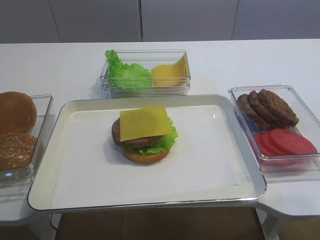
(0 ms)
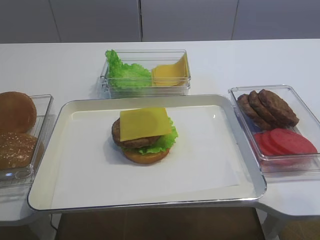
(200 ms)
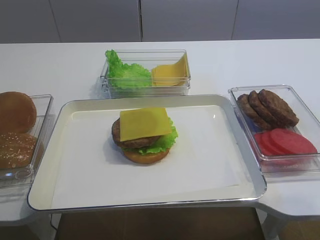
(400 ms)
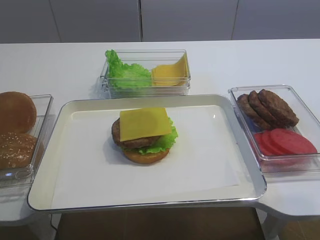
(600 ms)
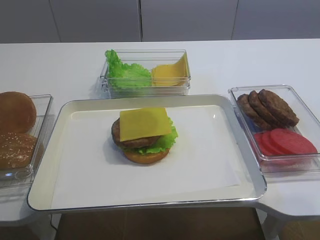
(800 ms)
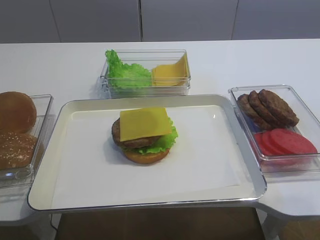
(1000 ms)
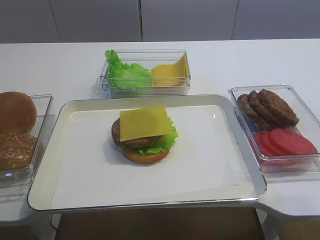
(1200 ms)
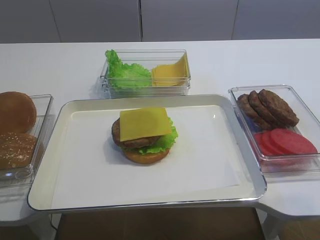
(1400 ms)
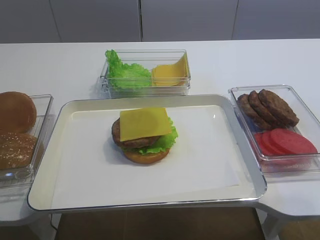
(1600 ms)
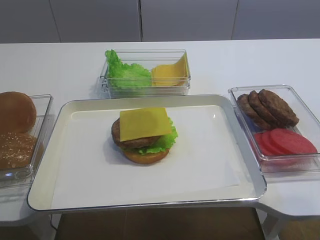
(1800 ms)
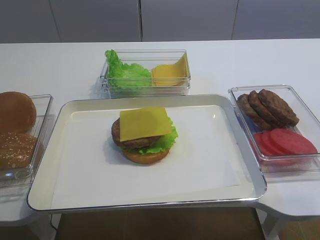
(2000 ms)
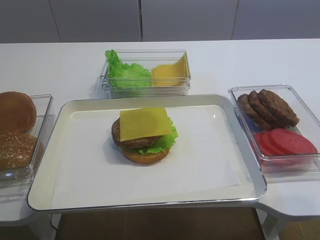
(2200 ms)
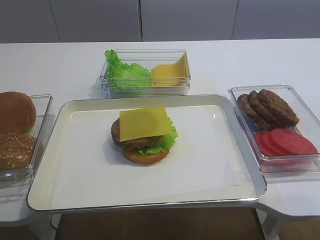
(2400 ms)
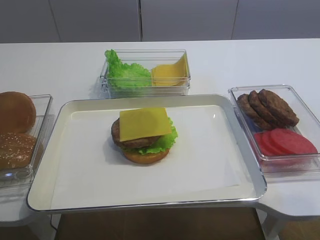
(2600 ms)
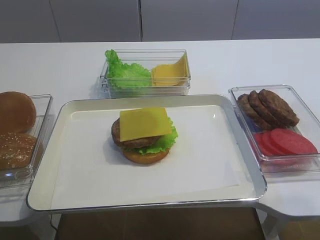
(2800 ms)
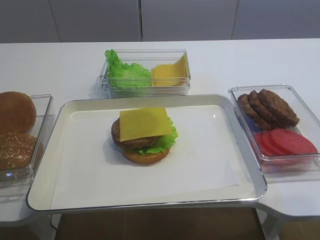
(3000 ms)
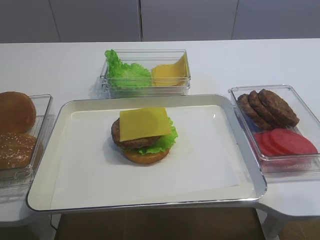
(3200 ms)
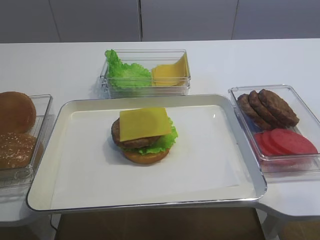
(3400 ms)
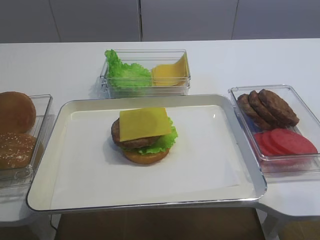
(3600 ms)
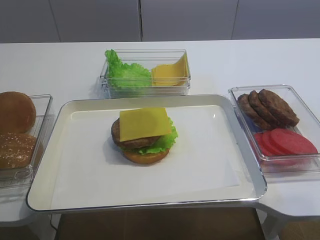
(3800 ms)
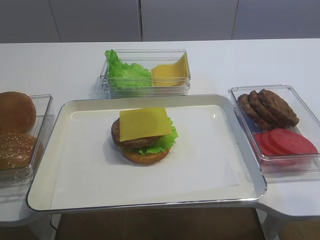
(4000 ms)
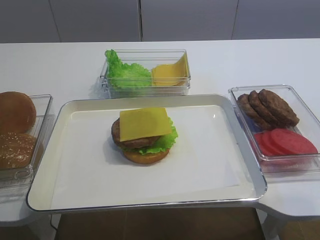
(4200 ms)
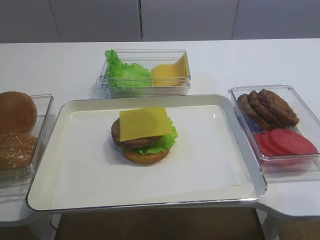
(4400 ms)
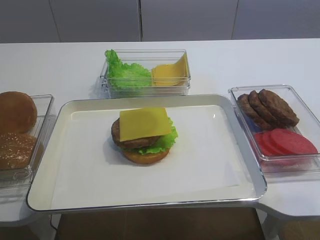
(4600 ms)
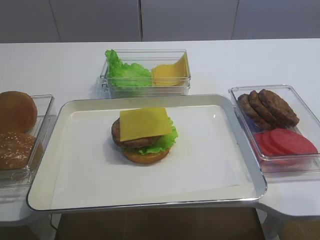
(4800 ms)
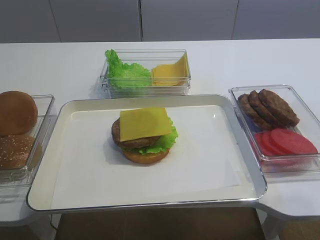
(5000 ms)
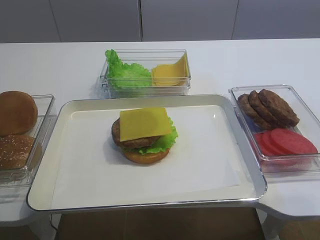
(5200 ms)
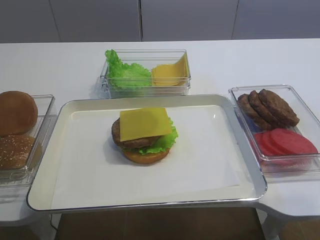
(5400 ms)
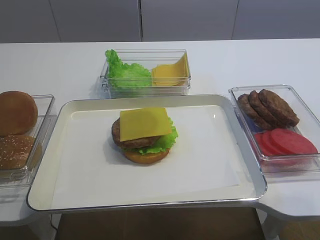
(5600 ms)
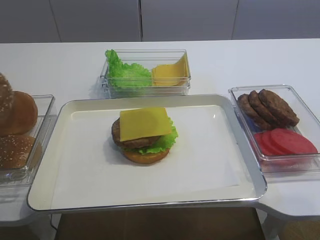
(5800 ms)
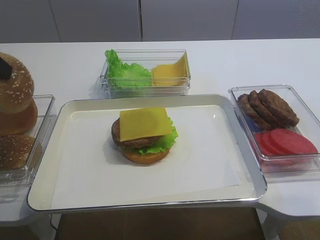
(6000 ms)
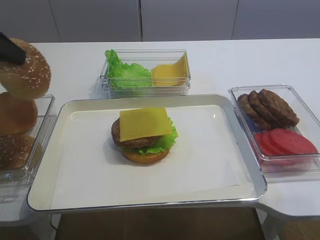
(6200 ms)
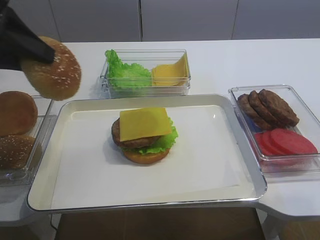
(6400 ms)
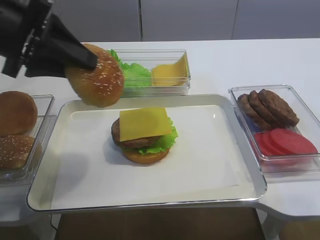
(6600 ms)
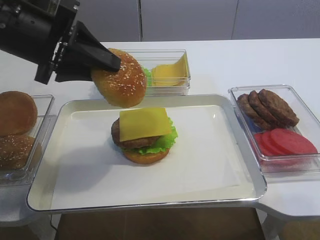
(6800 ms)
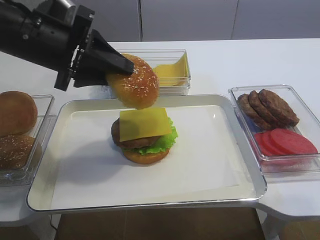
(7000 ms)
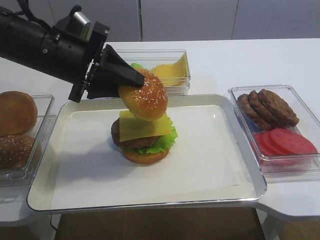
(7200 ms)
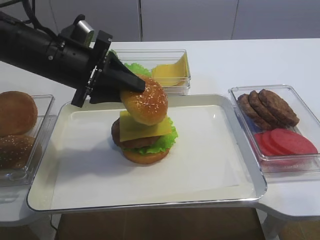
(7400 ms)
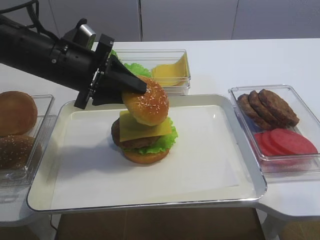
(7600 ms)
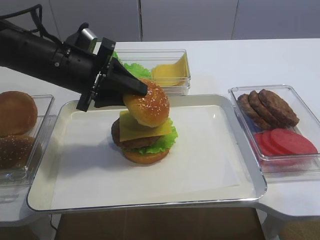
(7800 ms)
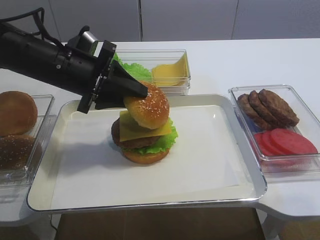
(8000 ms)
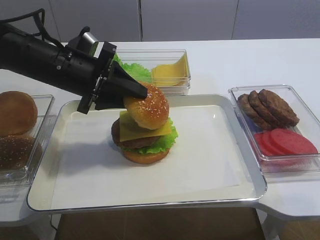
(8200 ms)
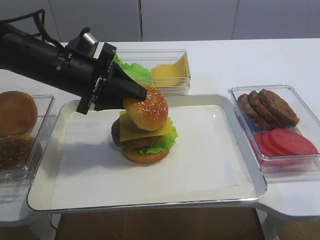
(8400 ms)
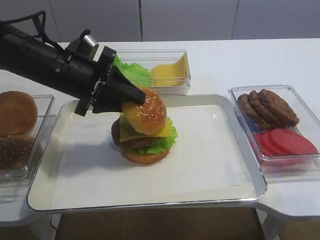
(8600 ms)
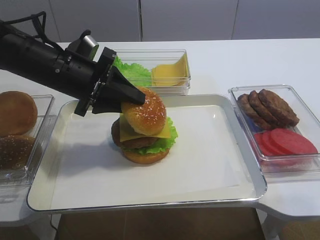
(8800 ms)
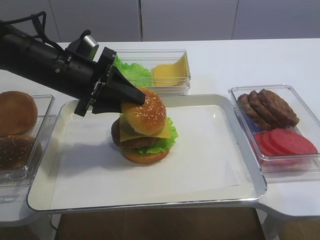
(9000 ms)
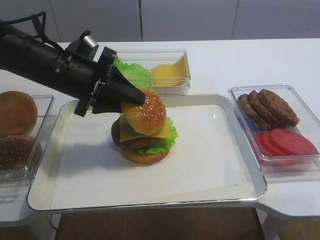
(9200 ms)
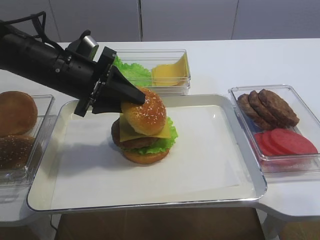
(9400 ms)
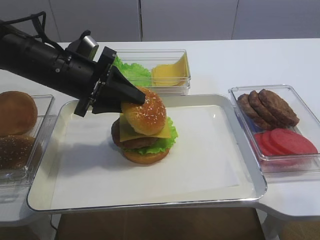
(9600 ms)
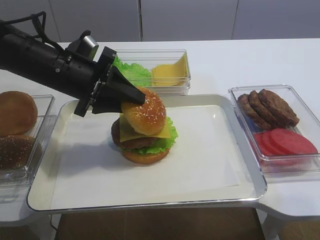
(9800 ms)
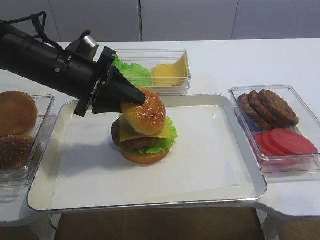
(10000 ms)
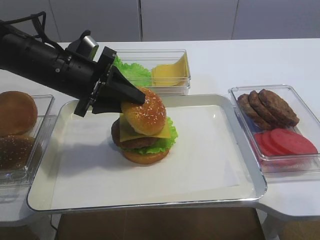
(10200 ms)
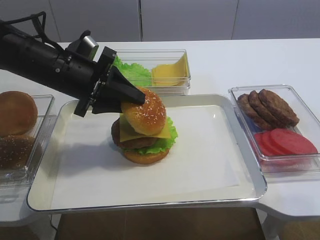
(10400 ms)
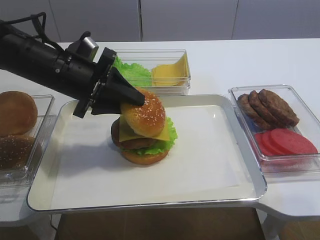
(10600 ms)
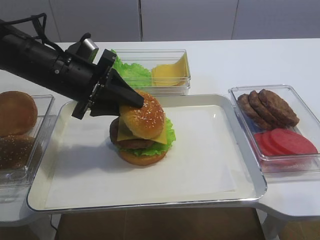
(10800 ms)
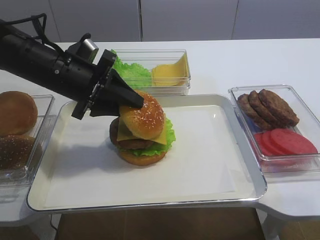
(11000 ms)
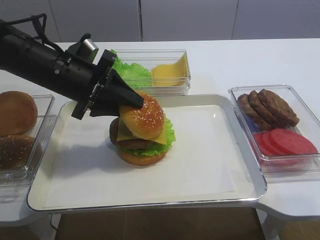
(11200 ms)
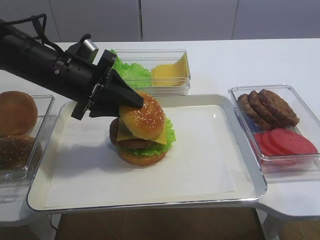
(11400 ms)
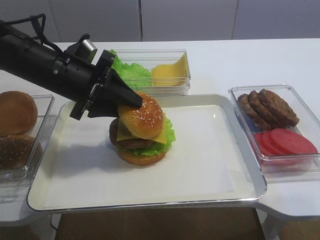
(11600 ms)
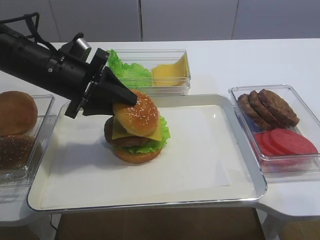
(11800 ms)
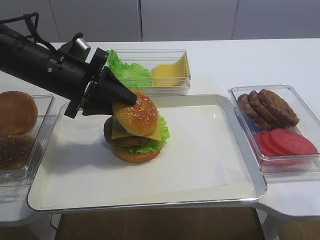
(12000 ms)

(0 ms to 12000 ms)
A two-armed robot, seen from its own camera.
Step, 0 ms - 6000 ms: Pick up the hamburger lid with the left gripper.
4400 ms - 6000 ms: The left gripper travels upward by roughly 10 cm, and closes its fingers.
6000 ms - 7600 ms: The left gripper moves to the right, downward and forward, approximately 20 cm.
7600 ms - 9000 ms: The grippers make only small movements.
9000 ms - 12000 ms: The two grippers keep their place.

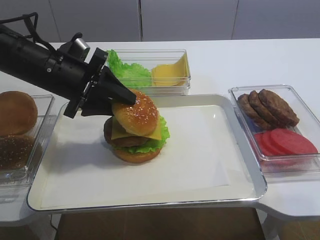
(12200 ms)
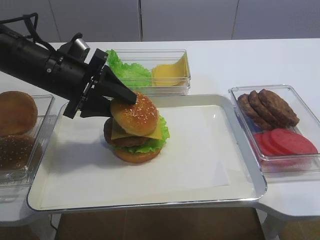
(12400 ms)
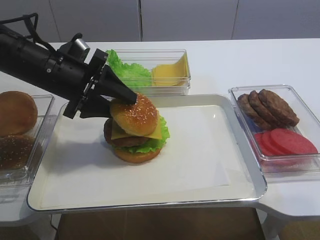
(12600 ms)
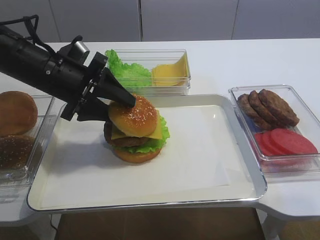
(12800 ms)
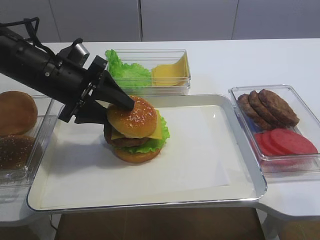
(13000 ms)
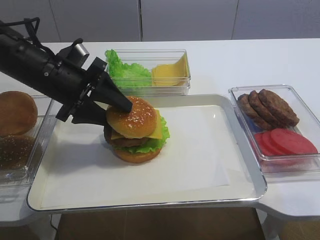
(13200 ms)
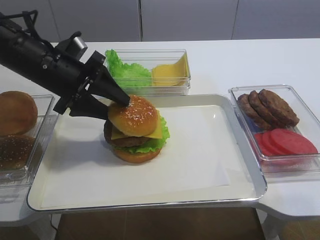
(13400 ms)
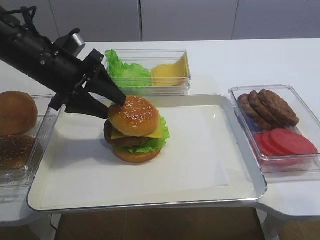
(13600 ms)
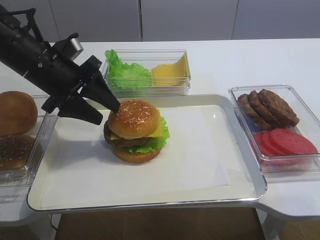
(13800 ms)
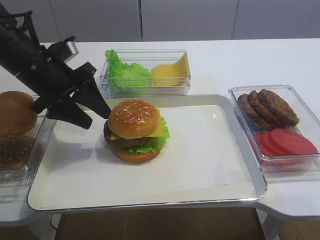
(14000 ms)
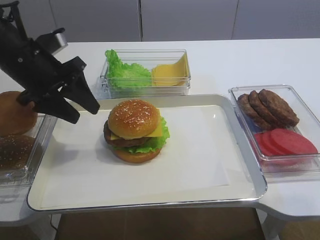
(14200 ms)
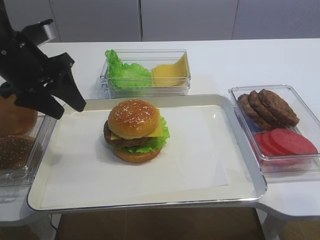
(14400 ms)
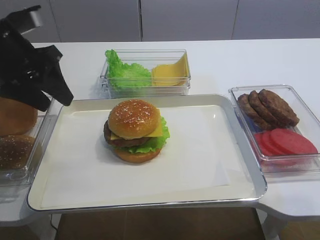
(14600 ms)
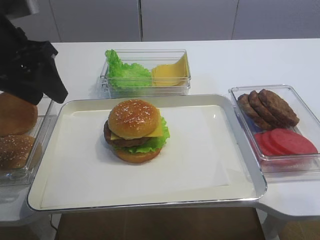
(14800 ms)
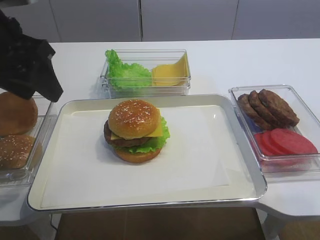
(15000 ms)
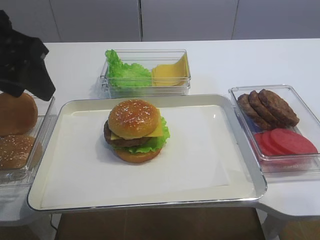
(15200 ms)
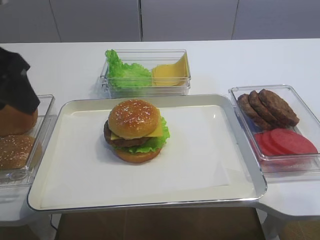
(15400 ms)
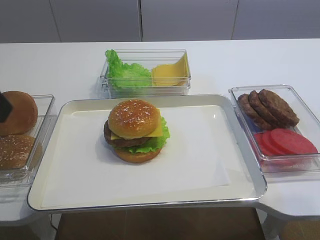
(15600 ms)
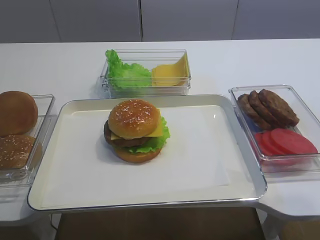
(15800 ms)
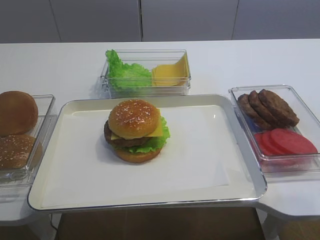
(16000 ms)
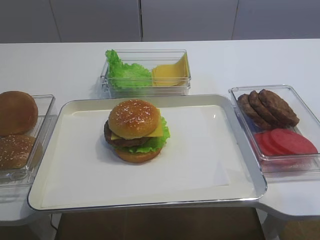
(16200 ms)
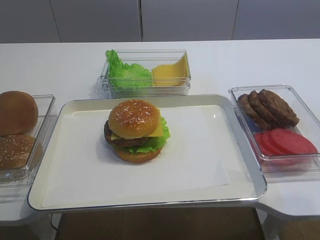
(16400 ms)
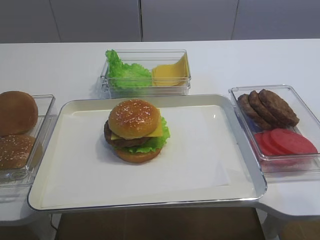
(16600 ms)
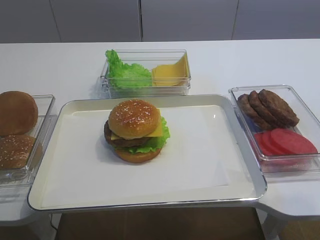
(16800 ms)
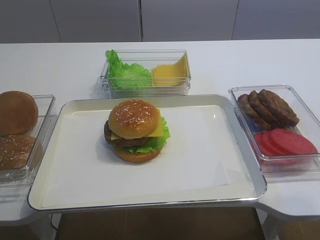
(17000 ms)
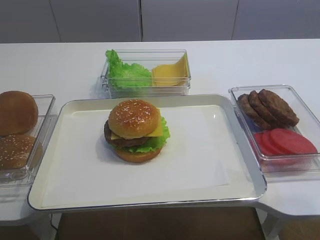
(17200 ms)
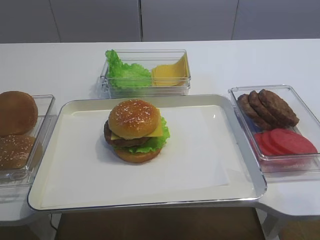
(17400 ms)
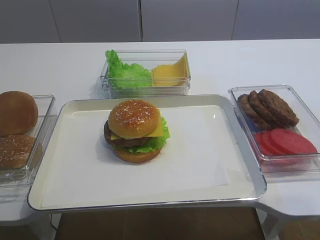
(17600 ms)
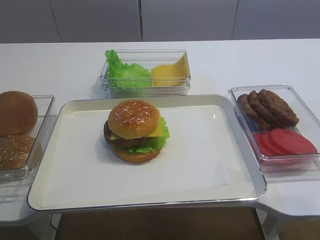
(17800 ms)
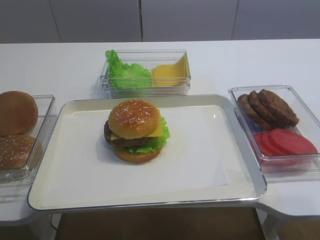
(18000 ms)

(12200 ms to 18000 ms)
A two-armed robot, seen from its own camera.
Step, 12200 ms - 14800 ms: Place the hamburger lid on the cheese slice with the left gripper.
12200 ms - 13600 ms: The left gripper opens up.
13600 ms - 15000 ms: The left gripper moves upward and backward, some 15 cm.
15000 ms - 16600 ms: The left gripper is displaced backward by some 25 cm.

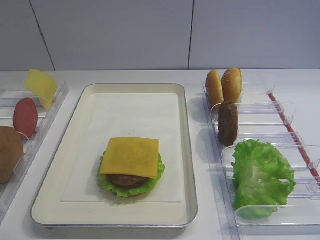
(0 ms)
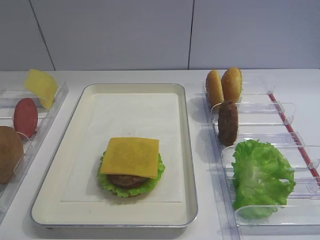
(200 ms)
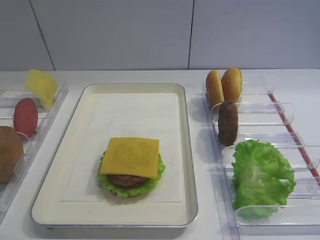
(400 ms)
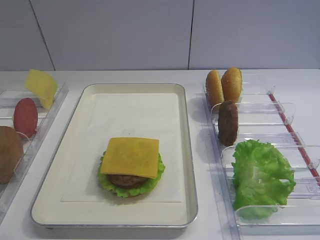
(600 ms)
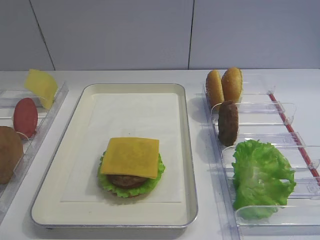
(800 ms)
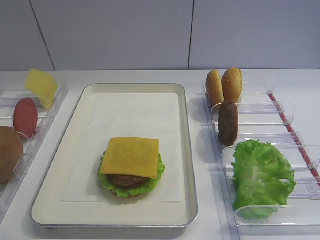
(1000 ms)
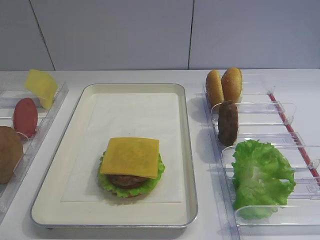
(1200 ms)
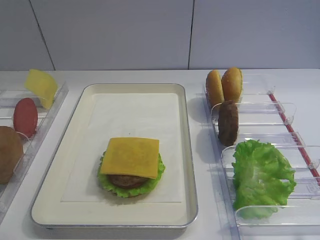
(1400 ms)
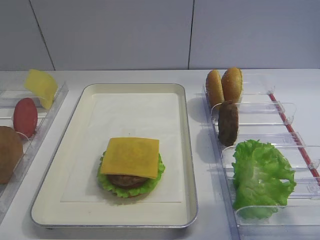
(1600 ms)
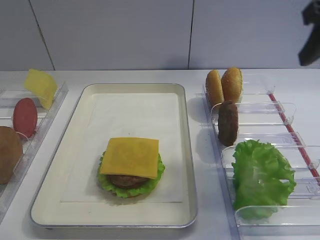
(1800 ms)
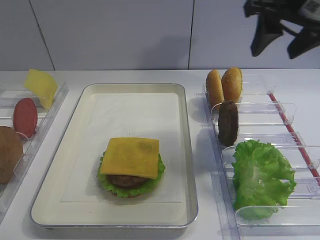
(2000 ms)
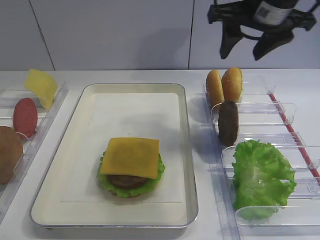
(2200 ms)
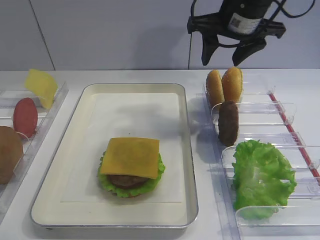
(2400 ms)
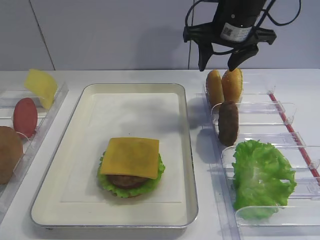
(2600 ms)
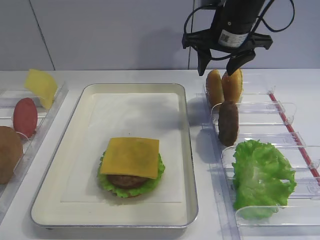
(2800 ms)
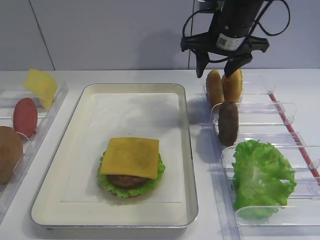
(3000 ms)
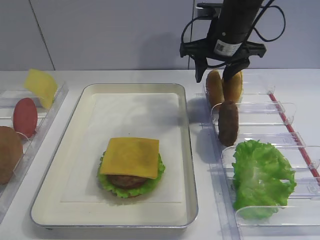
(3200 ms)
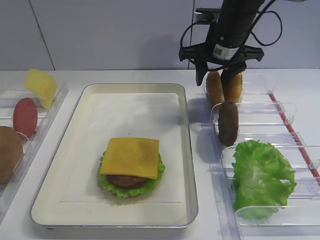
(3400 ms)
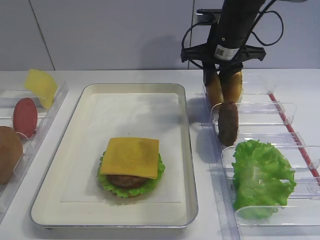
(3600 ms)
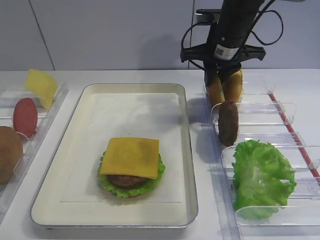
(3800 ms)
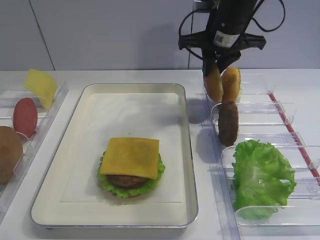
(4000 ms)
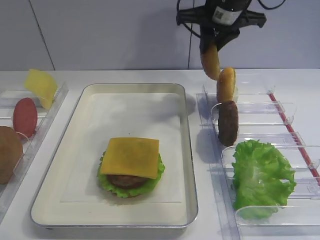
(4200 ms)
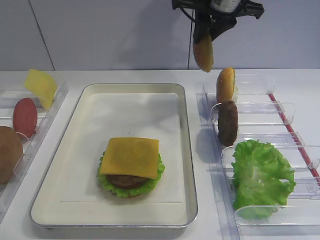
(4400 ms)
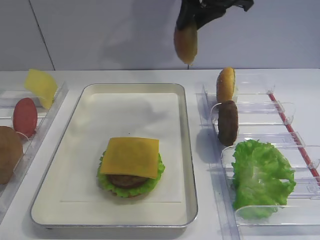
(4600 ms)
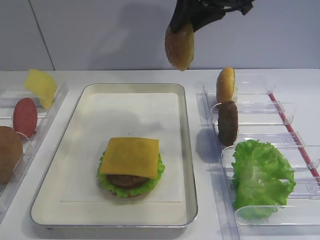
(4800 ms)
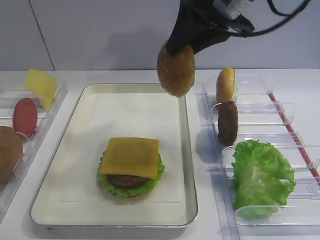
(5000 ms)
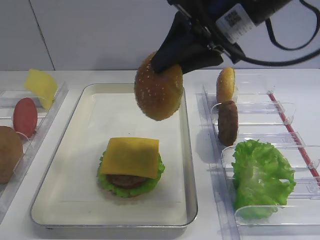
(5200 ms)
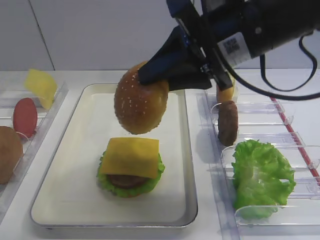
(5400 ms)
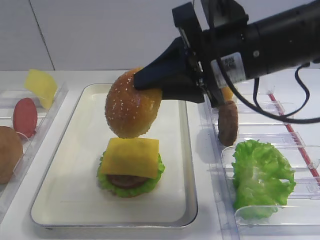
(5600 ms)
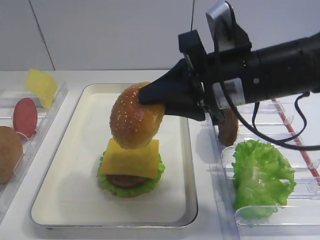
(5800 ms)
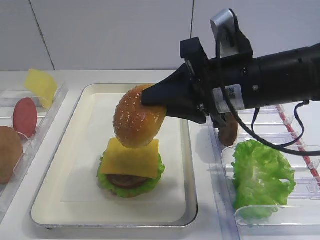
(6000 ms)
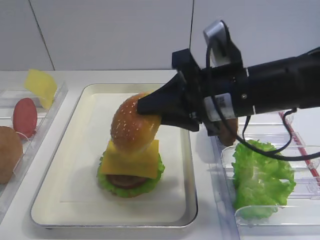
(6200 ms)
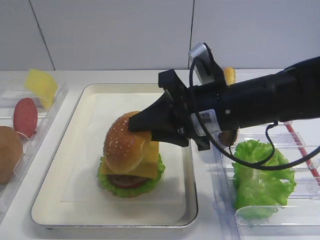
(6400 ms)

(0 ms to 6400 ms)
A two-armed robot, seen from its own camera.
Step, 0 ms - 4200 ms: Pick up the hamburger lid with the right gripper.
1600 ms - 3200 ms: The right gripper heads forward and to the left, covering approximately 30 cm.
3200 ms - 4800 ms: The right gripper goes roughly 10 cm upward, and closes.
4800 ms - 6400 ms: The right gripper is displaced downward and backward by roughly 20 cm.
